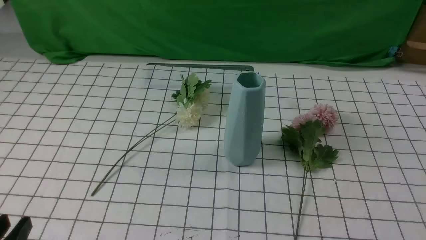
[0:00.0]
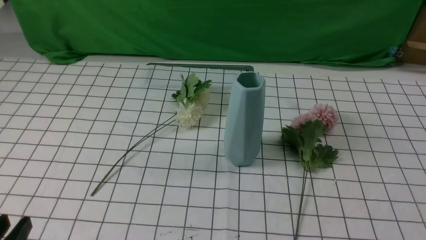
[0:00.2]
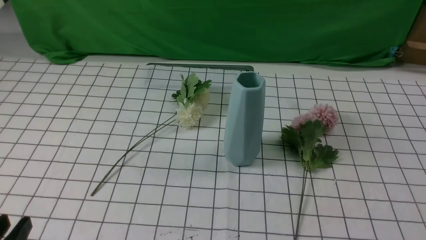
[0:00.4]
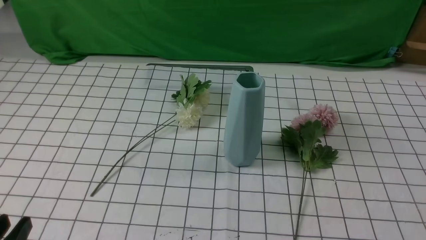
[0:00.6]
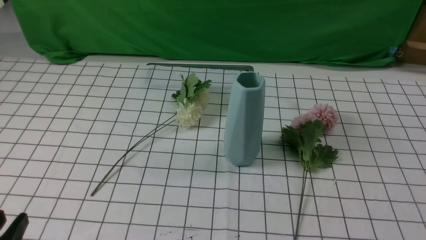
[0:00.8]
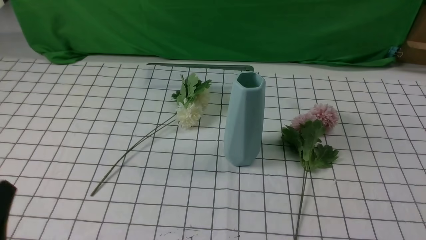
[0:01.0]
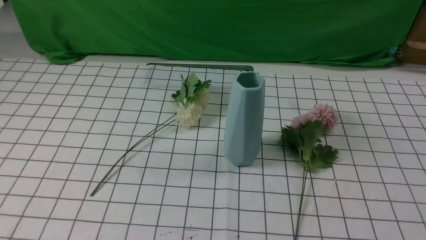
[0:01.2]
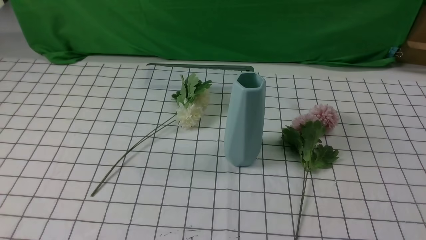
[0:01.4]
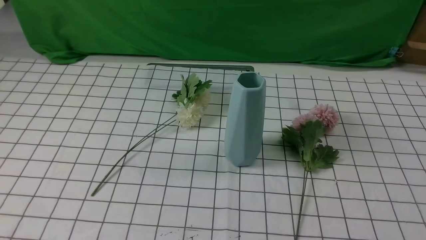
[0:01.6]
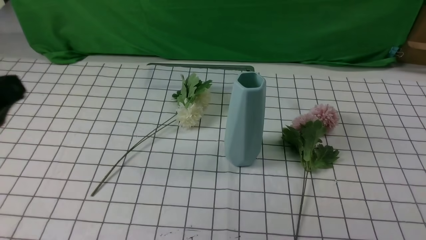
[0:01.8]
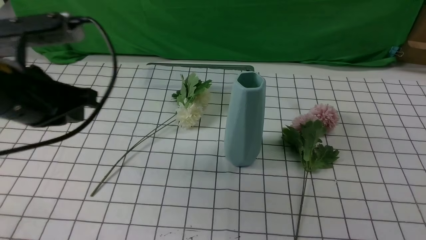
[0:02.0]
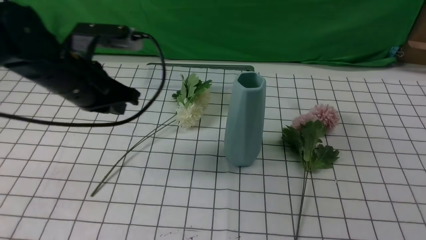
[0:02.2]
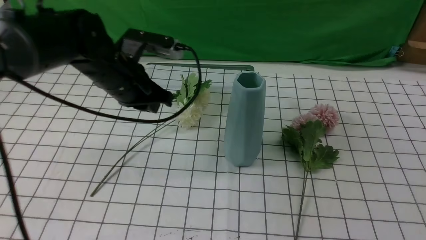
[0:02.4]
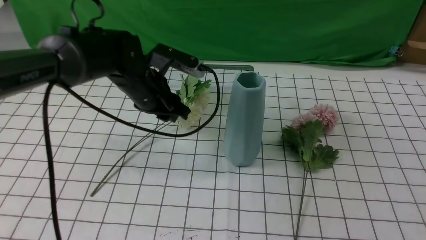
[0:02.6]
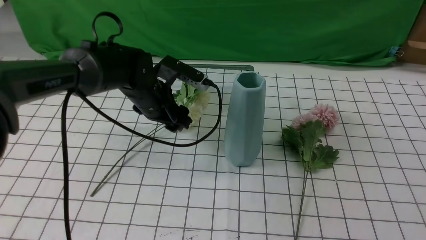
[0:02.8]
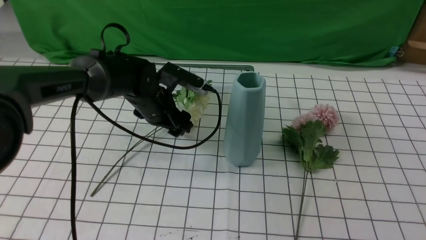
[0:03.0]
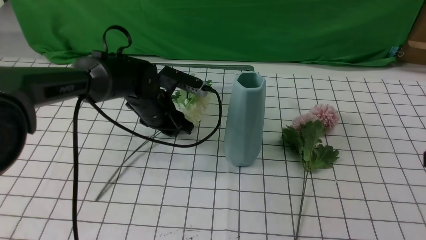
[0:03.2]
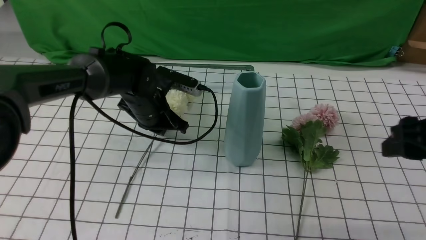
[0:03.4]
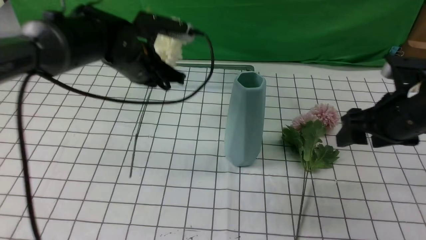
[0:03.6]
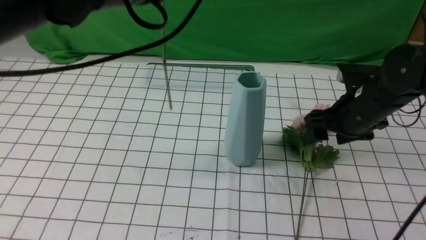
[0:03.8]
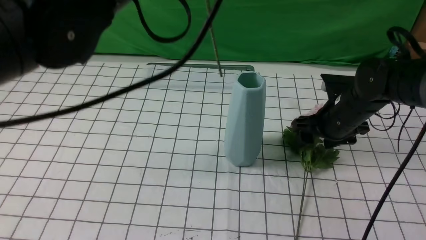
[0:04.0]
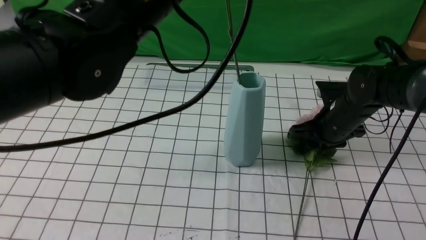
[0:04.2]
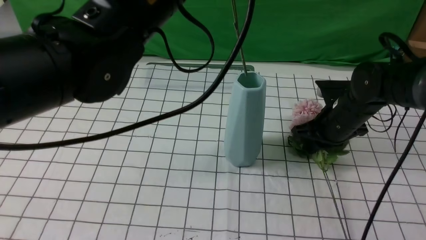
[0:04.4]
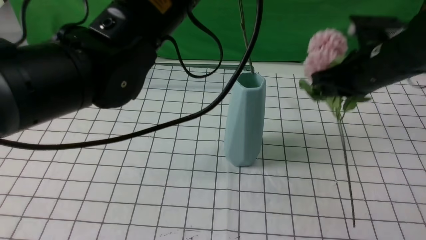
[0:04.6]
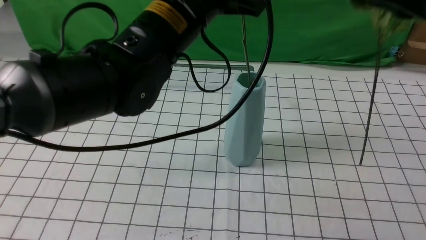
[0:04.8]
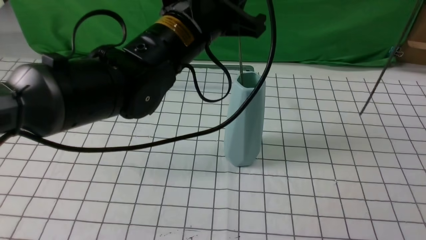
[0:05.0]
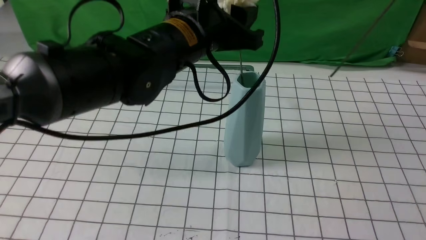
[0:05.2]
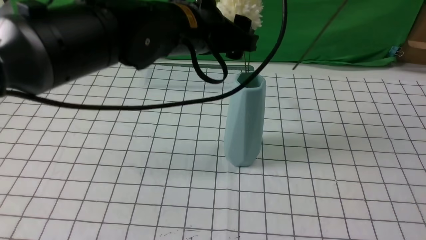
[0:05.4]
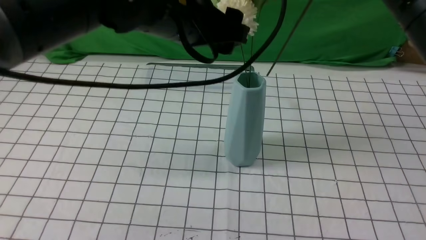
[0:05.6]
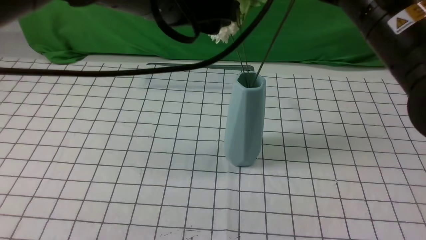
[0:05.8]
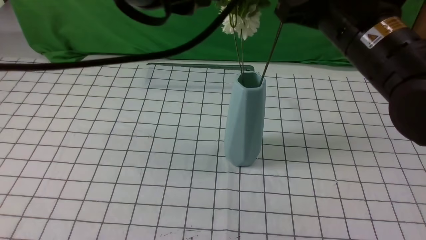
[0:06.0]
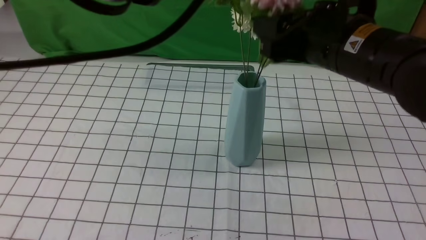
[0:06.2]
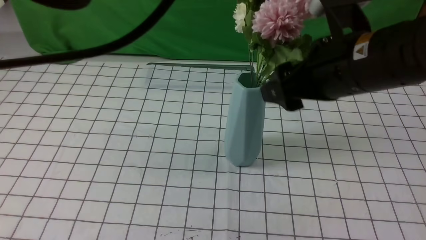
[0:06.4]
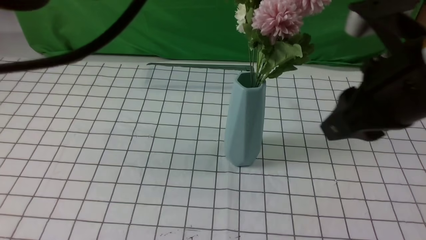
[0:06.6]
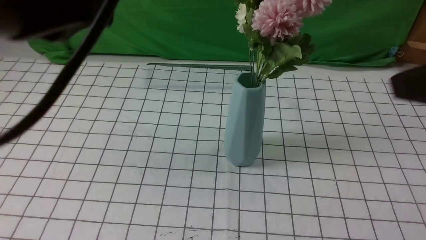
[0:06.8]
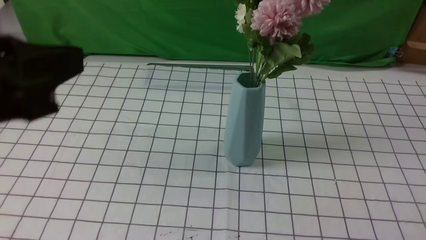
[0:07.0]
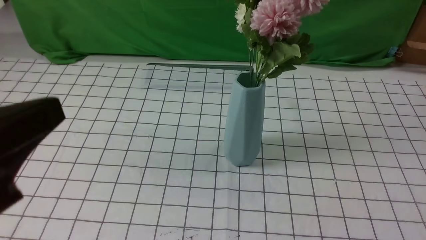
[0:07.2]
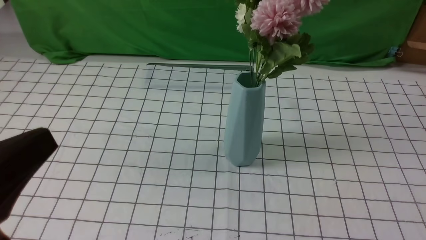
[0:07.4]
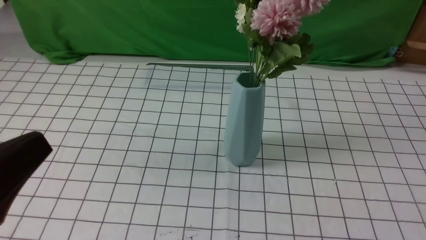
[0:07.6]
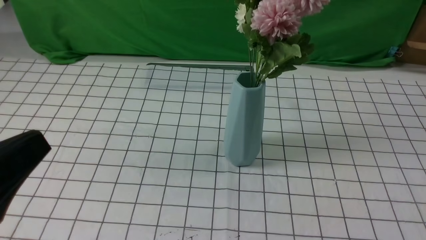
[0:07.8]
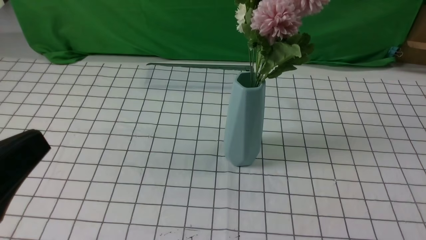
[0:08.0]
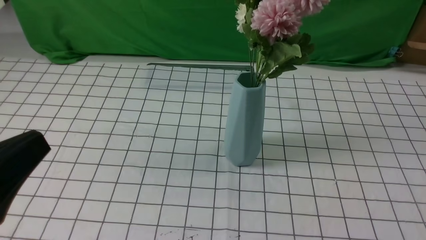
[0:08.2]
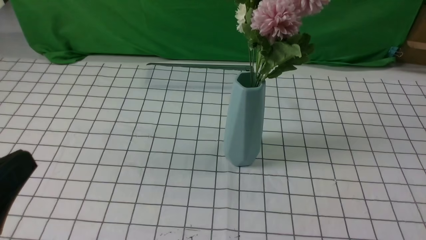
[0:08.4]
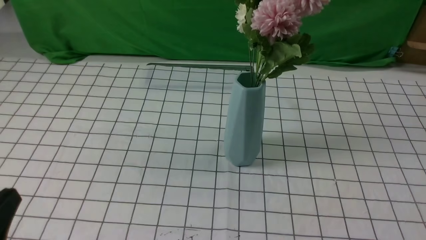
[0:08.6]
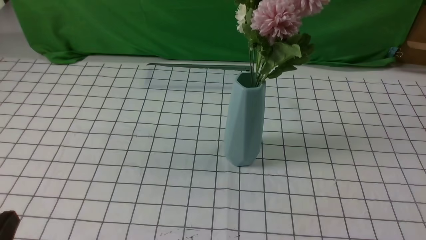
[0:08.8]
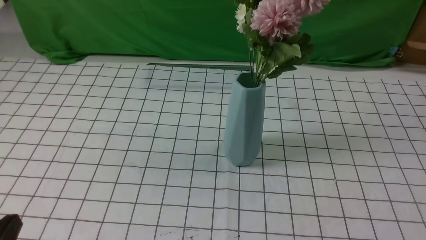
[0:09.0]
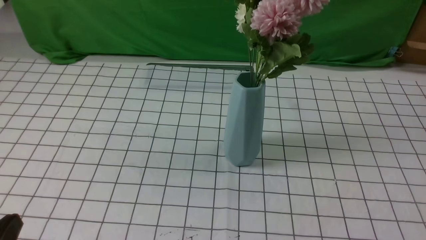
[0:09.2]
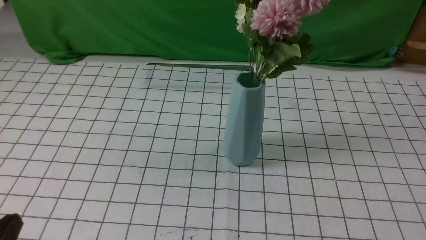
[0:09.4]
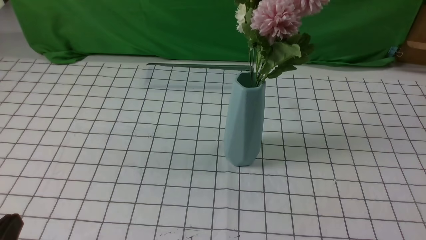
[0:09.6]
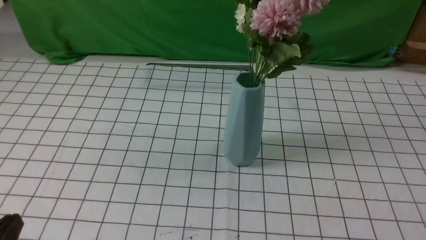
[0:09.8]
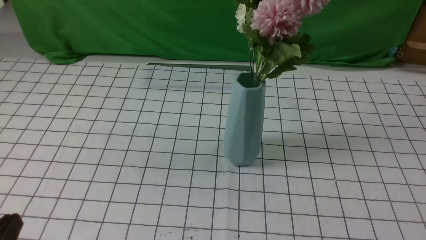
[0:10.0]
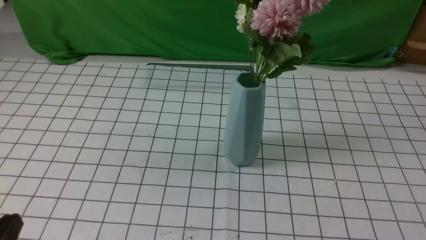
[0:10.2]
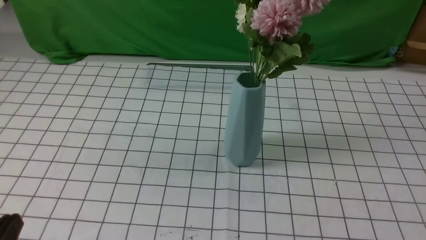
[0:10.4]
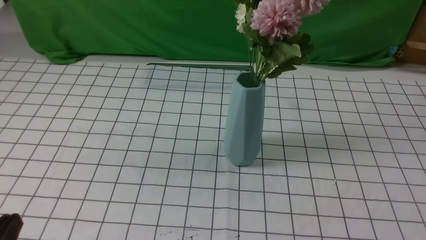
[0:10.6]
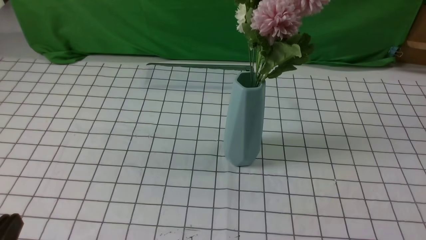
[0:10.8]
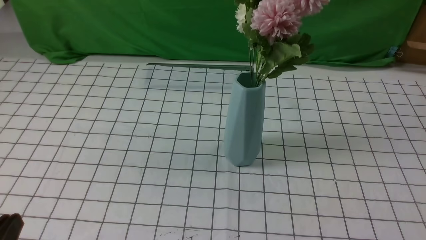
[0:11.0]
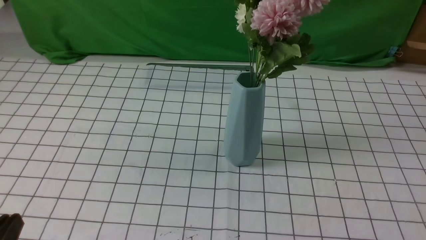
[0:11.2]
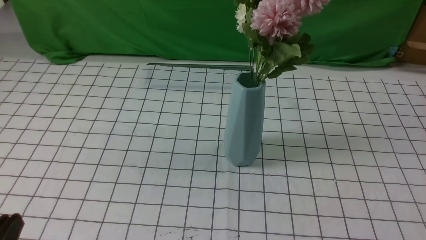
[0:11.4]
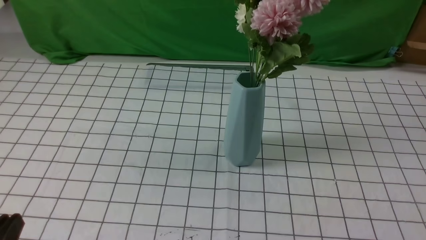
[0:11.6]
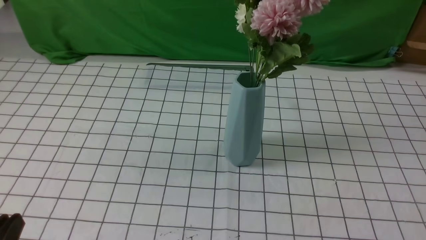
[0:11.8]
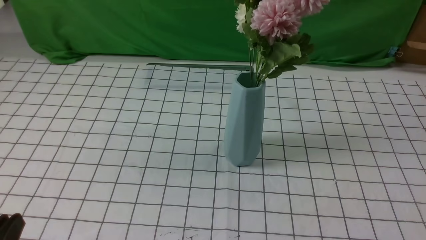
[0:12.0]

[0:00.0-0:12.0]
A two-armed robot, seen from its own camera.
Task of the whole recording: insert the flowers into the vase on the table with the white tablecloth.
Step, 0:00.0 to 0:06.4: Put the flowers in the vase with both hands.
0:01.6 to 0:03.0: The right gripper moves upward and forward, some 15 cm. The left gripper is displaced forward, downward and to the right by some 40 cm, and opens its fingers.
0:03.0 to 0:04.4: The right gripper is displaced forward and downward by approximately 25 cm, and closes. The left gripper travels upward and backward by approximately 25 cm, and closes up.
0:04.4 to 0:06.0: The left gripper shifts by approximately 5 cm, and opens its fingers; the right gripper travels upward, backward and to the left by about 20 cm.
0:06.0 to 0:07.6: The left gripper heads backward, to the left and downward, covering approximately 25 cm, and closes; the right gripper shifts roughly 30 cm backward and to the right.
0:07.6 to 0:09.0: The left gripper goes about 15 cm downward.
0:10.4 to 0:12.0: Both grippers stay put.
